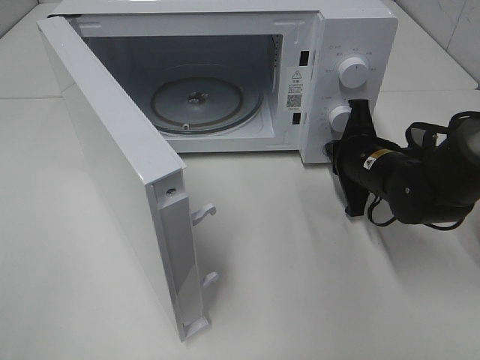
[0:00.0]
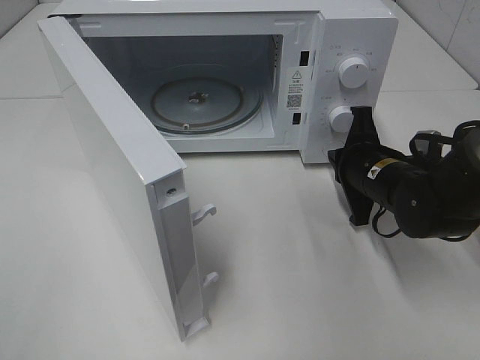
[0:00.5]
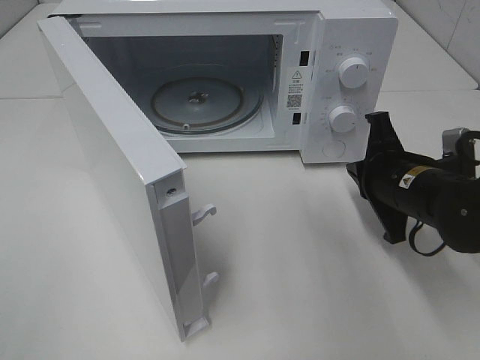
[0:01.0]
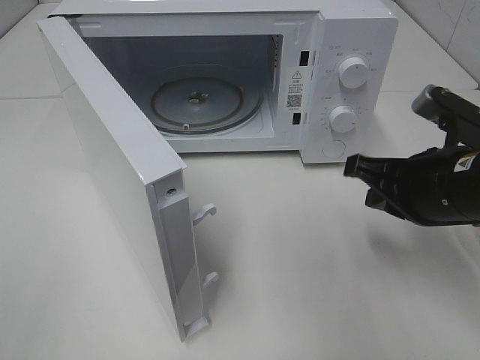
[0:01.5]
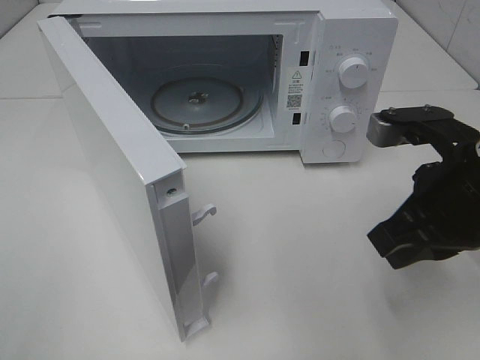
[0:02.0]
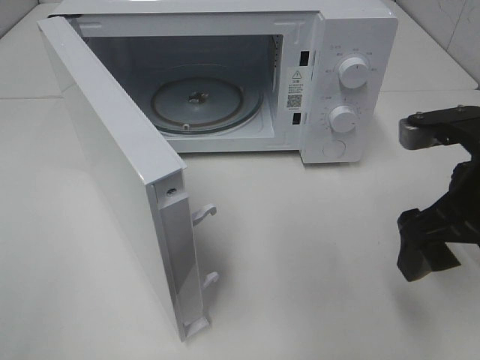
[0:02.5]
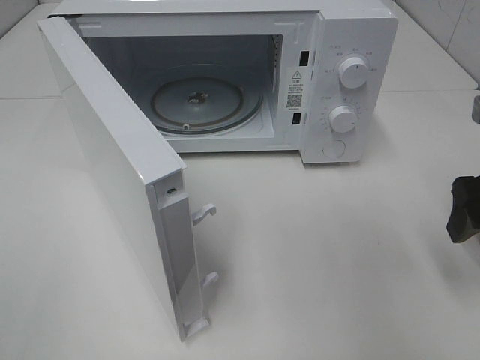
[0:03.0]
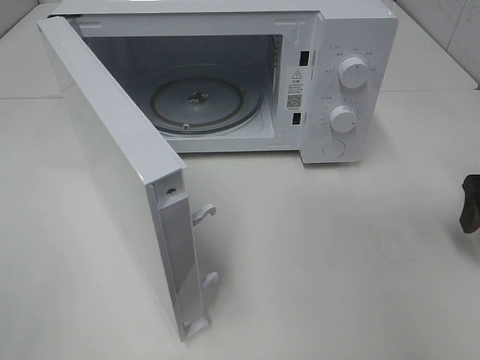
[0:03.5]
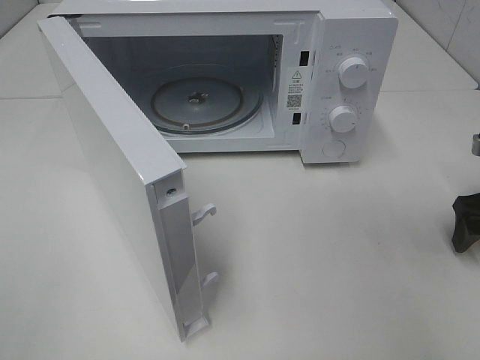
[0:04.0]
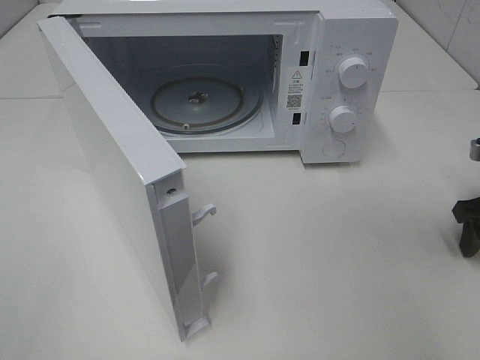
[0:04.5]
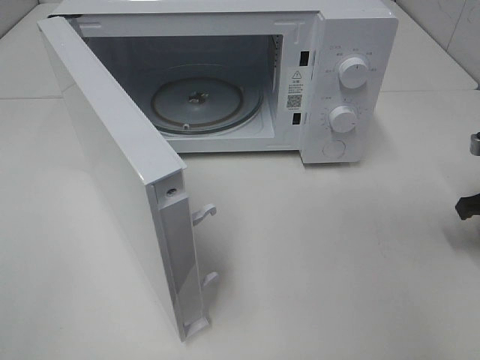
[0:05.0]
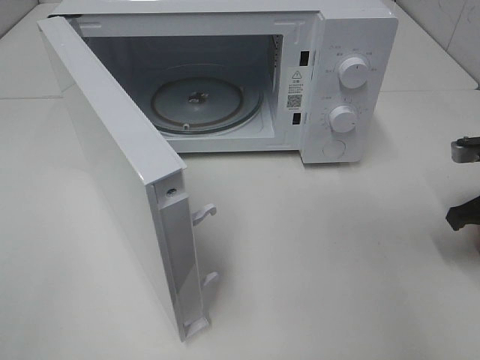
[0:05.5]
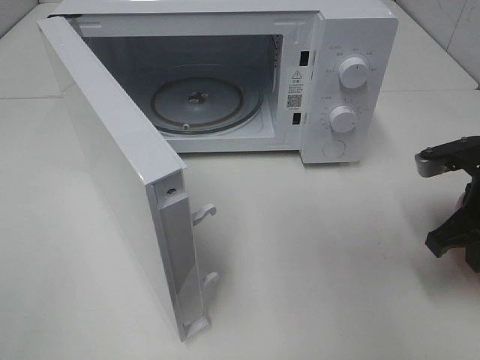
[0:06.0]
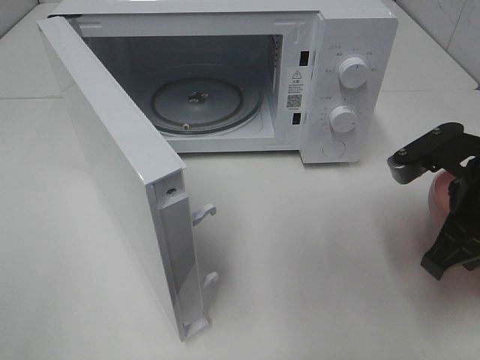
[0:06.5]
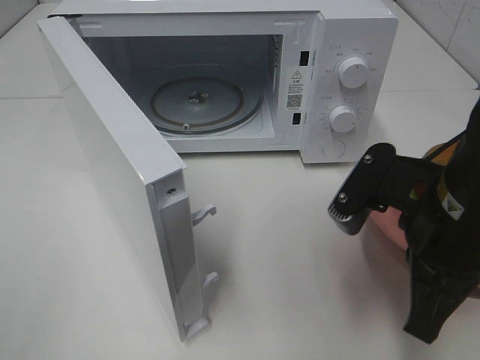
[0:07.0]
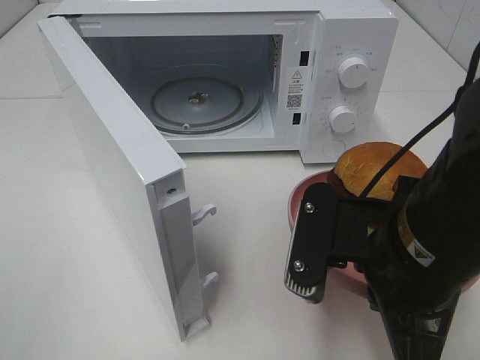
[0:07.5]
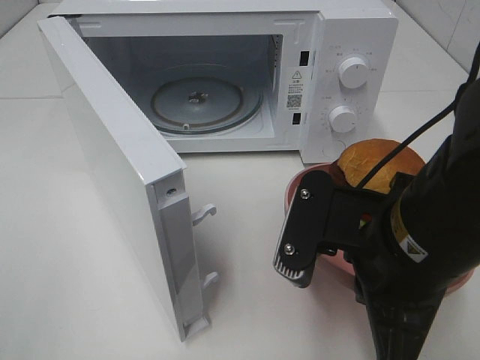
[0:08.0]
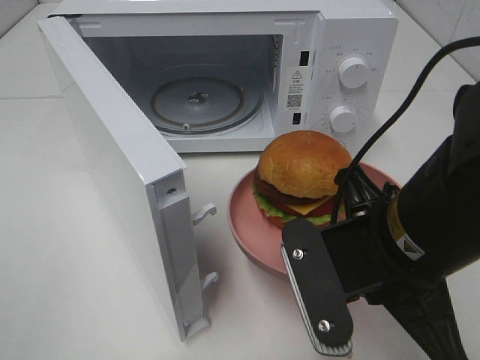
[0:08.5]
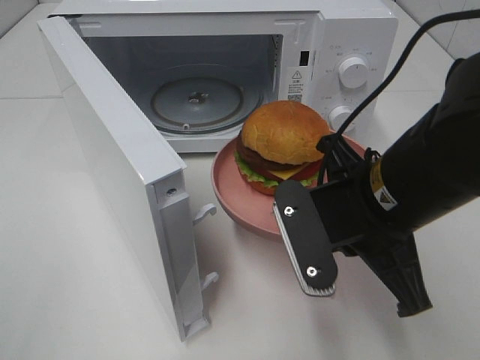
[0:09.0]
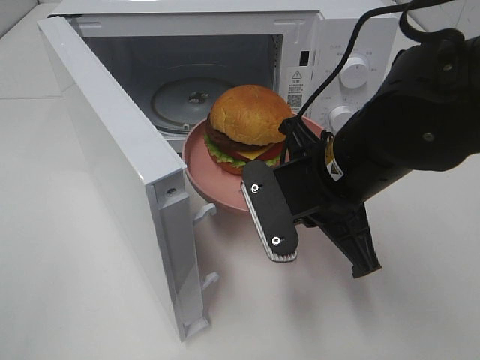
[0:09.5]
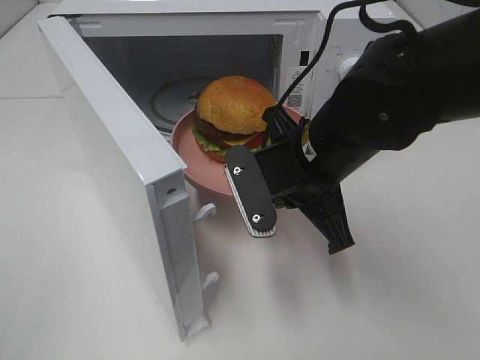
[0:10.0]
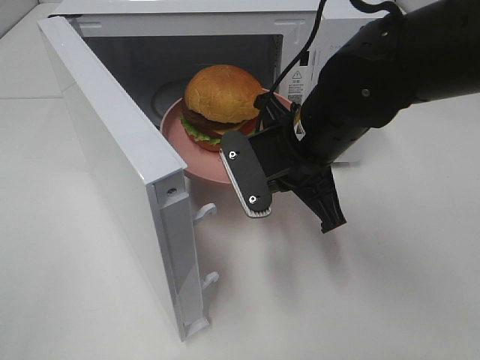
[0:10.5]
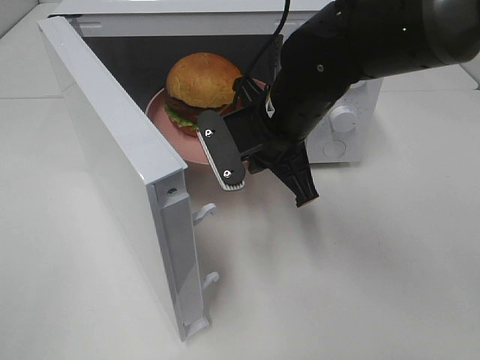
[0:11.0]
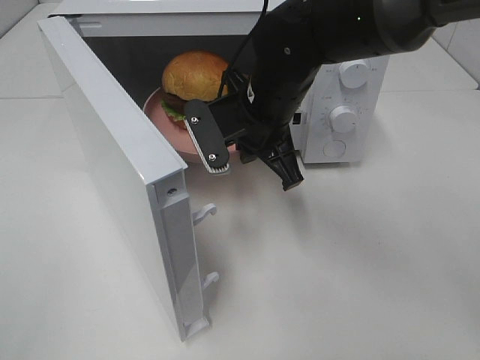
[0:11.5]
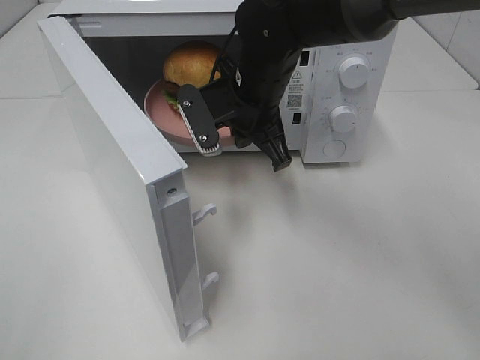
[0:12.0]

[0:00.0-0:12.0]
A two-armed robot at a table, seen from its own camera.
Task of the whole recording: Heat the burger.
Step, 0:00.5 to 0:04.5: Right hand: grab the plate with the hamburger.
0:00.0 to 0:02.0: The right gripper travels backward and upward by roughly 20 cm.
0:02.0 to 0:04.0: The right gripper heads to the right, forward and downward, covering approximately 20 cm, and opens.
0:04.0 to 0:06.0: The right gripper heads to the left, covering approximately 10 cm, and closes its fingers.
0:06.0 to 0:08.0: The right gripper travels to the left and backward by roughly 20 cm.
0:08.0 to 0:10.0: The right gripper shifts approximately 10 cm forward.
0:10.0 to 0:12.0: The right gripper is displaced forward and to the left by approximately 10 cm.

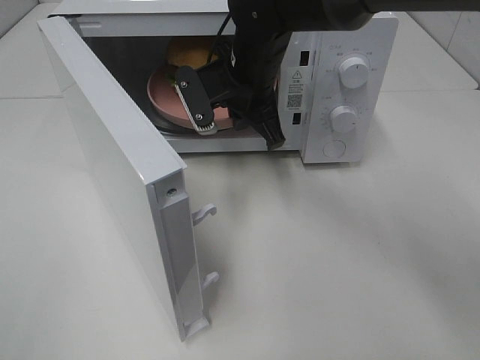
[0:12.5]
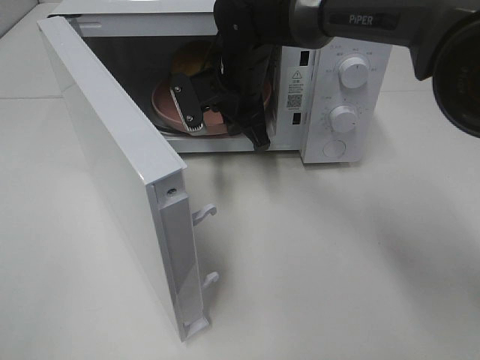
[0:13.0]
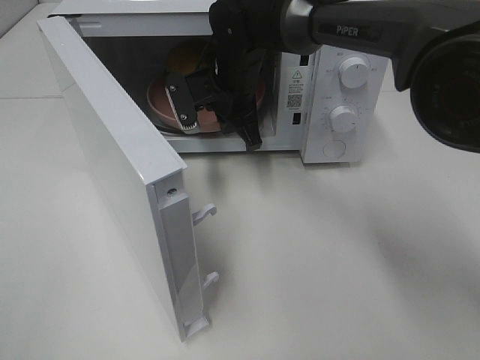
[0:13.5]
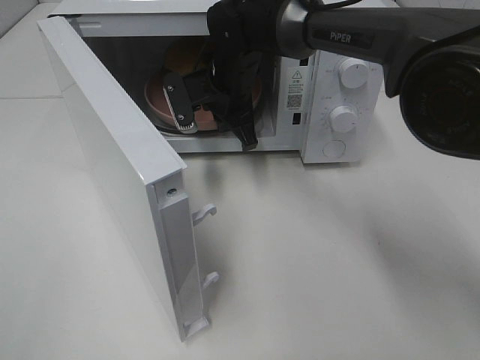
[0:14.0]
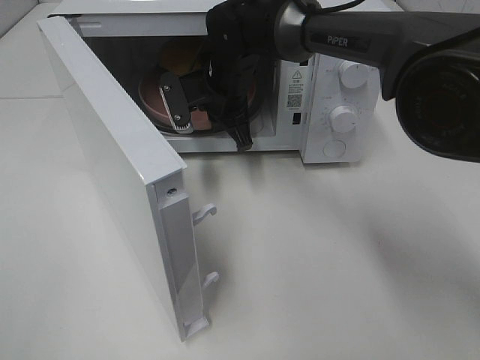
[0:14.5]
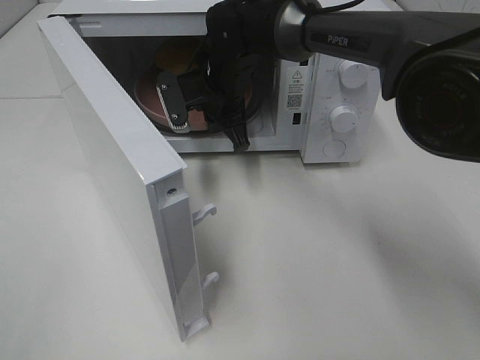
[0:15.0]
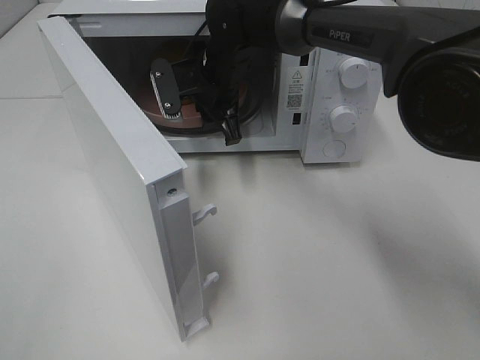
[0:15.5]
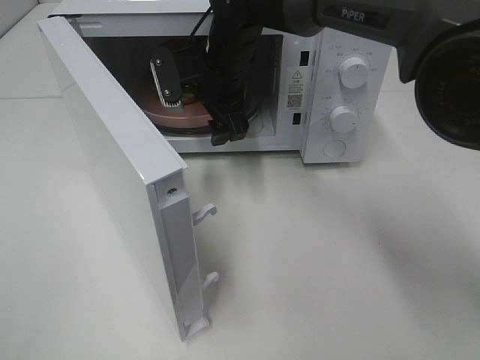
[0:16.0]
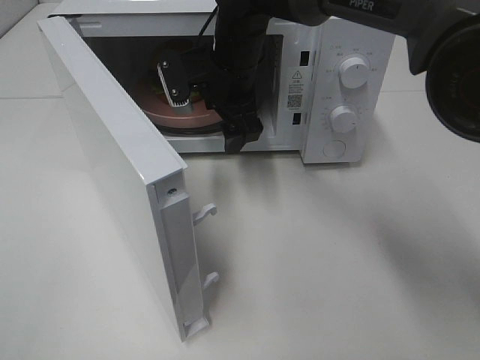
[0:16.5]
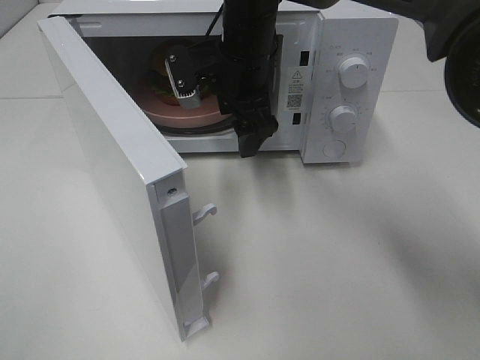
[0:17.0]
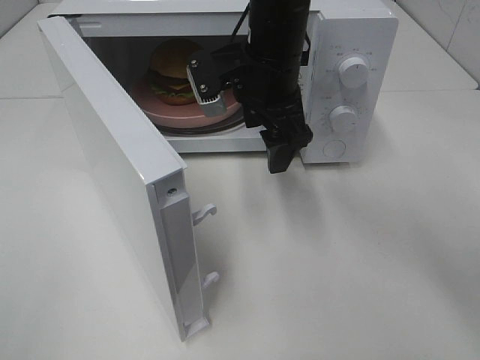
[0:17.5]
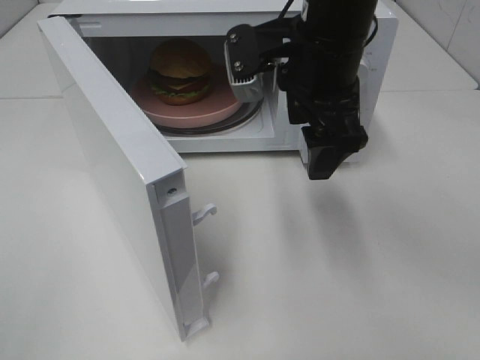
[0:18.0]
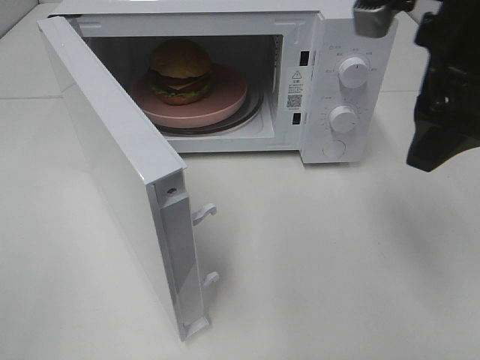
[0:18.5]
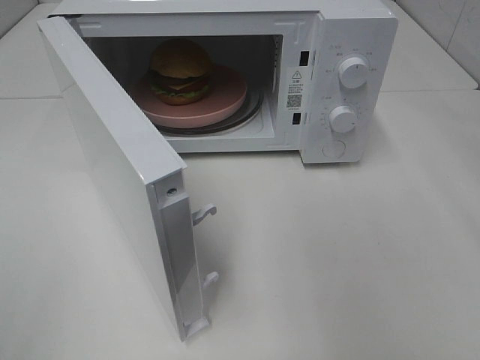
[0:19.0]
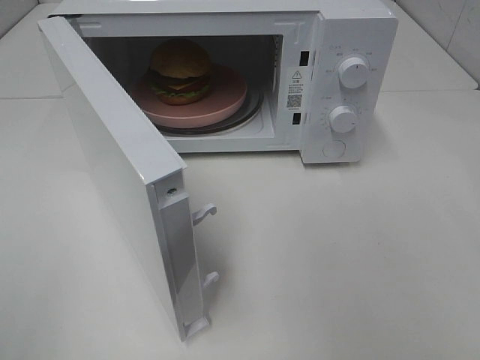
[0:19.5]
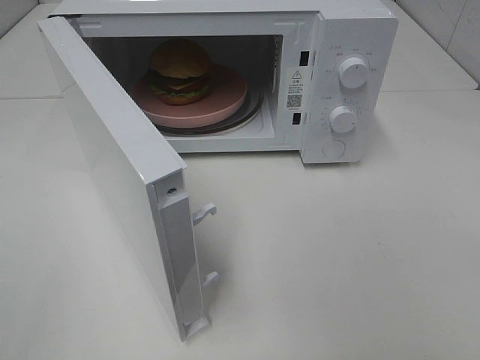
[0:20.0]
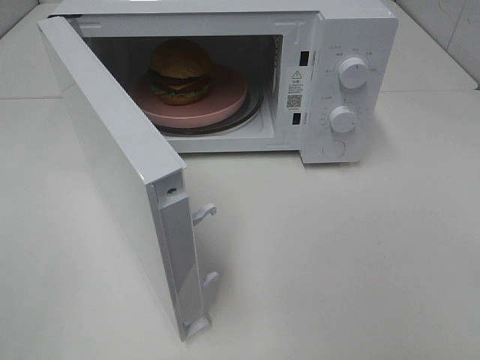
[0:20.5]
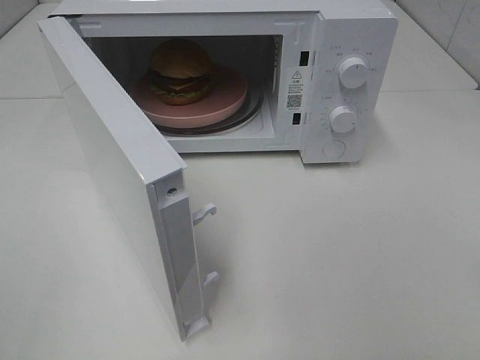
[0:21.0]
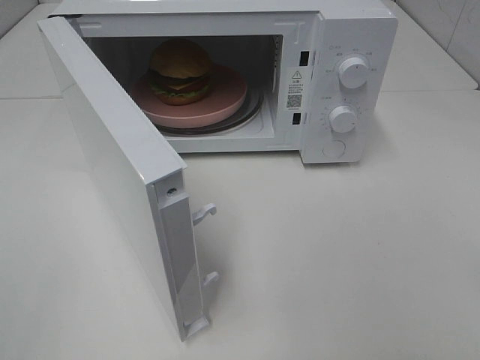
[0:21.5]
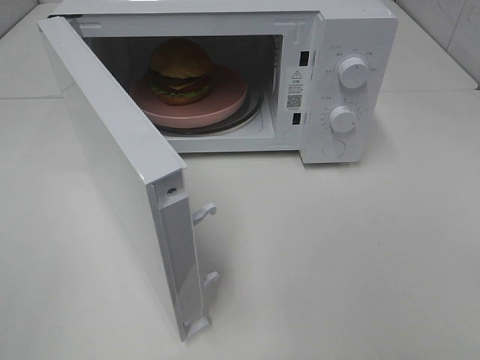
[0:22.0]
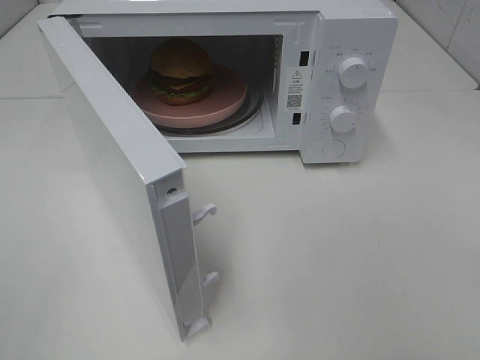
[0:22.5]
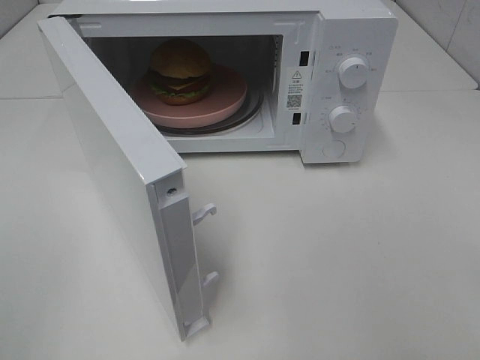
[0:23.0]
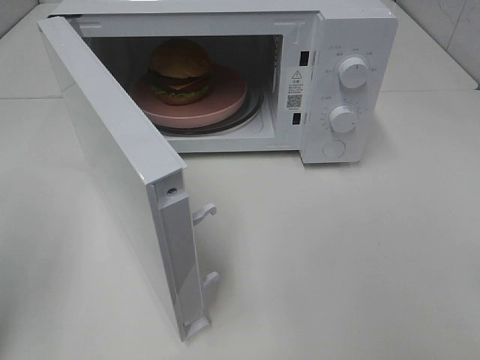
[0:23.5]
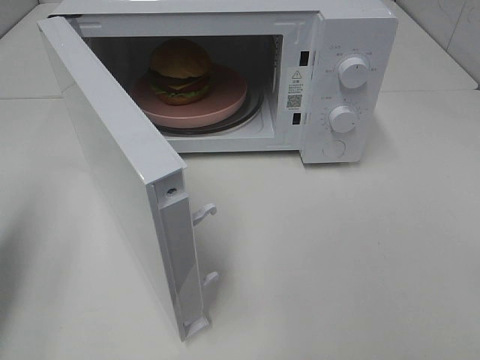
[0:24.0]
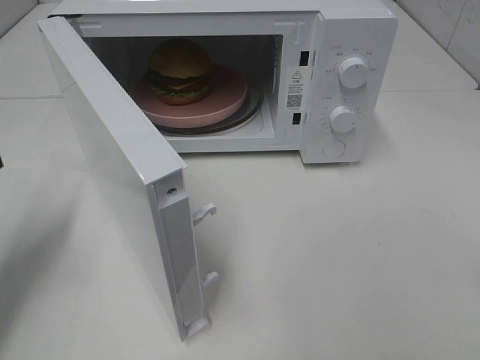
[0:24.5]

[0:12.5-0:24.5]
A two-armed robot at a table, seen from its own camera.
Task of the whole recording: Heat the burger.
Step, 0:12.5 to 0:15.0: Right hand: place the plate in the microwave.
0:12.5 to 0:14.5: The right gripper changes place by about 5 cm.
0:14.5 to 0:16.5: The right gripper opens up.
0:16.5 to 0:18.5: The right gripper heads to the right, backward and upward, covering roughly 30 cm.
0:18.5 to 0:20.5: The right gripper shifts approximately 30 cm backward and to the right.
0:22.5 to 0:24.5: The left gripper heads forward and downward, covering about 25 cm, and closes up.

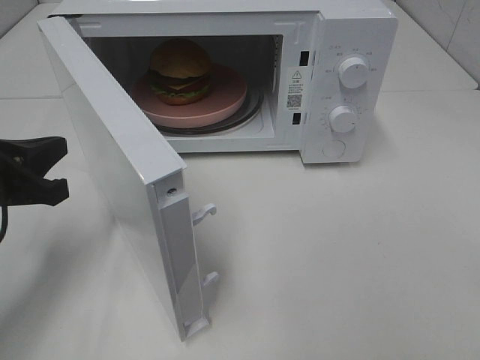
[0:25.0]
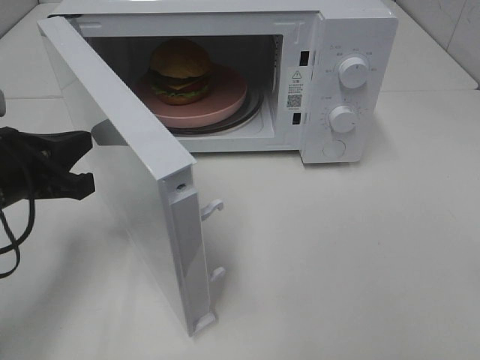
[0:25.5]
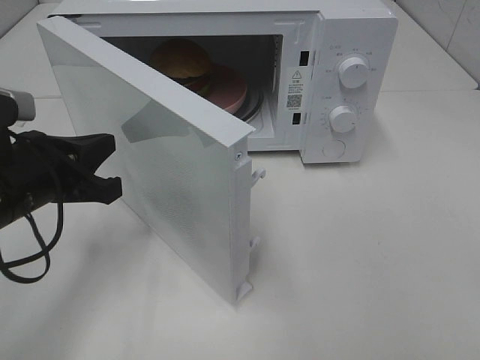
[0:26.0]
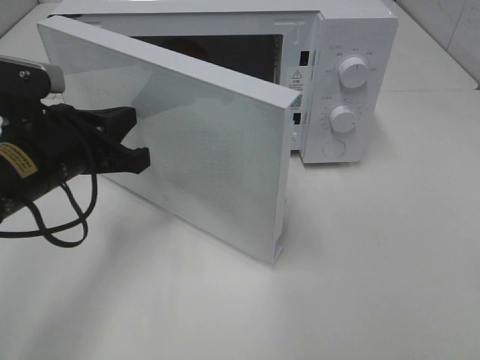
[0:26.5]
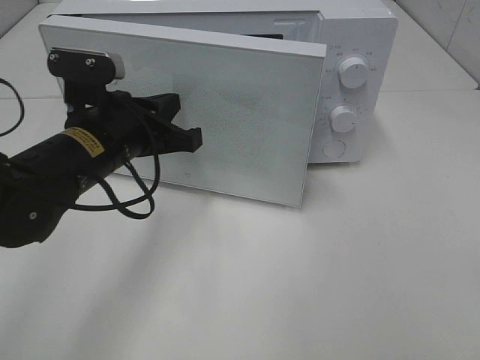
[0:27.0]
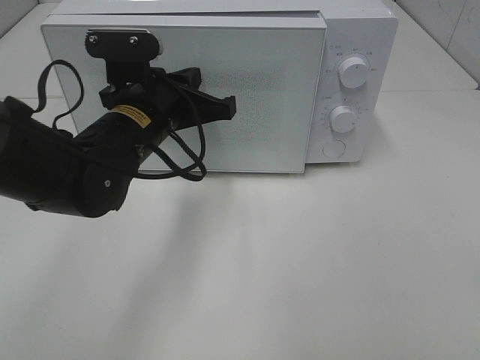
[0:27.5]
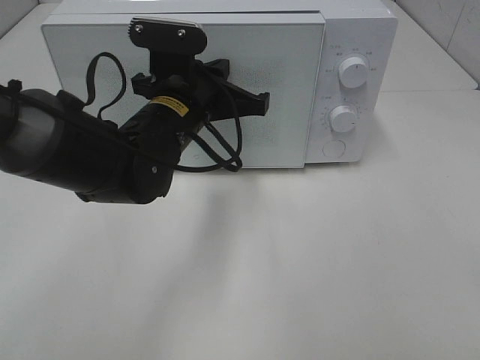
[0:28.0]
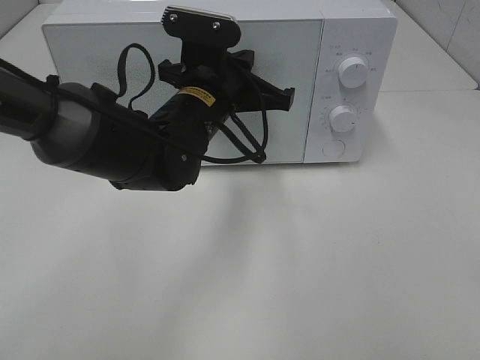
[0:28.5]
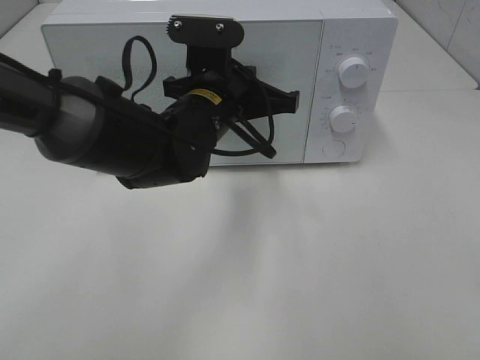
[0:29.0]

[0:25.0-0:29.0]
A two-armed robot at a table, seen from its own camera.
Task of the whole recording: Heat the burger.
Step, 0:25.0 to 0:28.0: Left hand: close the microwave door.
0:25.0 to 0:27.0: The left gripper is displaced to the right and forward by roughly 15 cm.
0:27.0 to 0:29.0: The left gripper heads to the right, covering approximately 10 cm.
